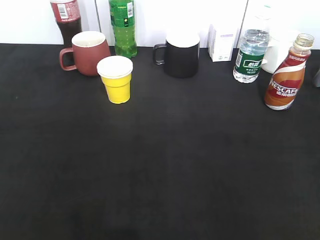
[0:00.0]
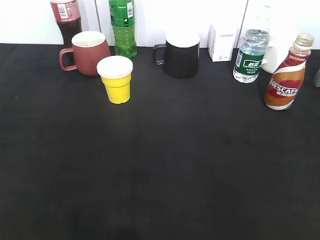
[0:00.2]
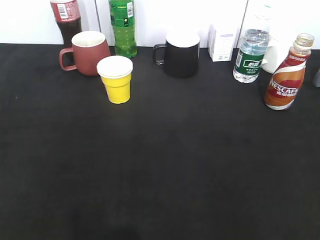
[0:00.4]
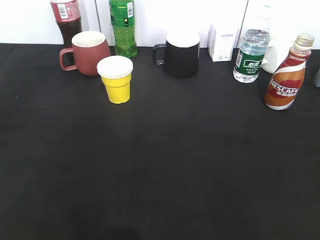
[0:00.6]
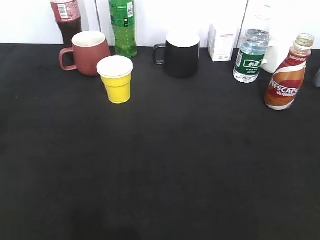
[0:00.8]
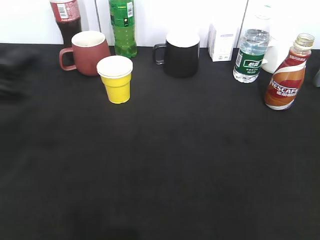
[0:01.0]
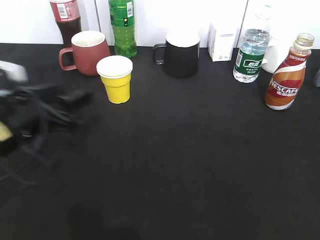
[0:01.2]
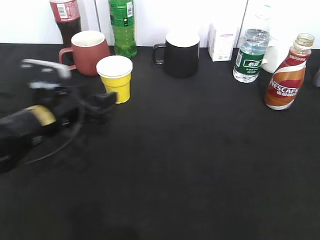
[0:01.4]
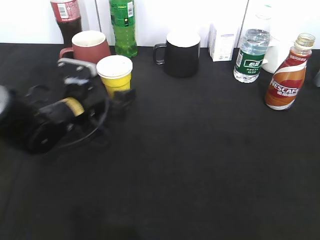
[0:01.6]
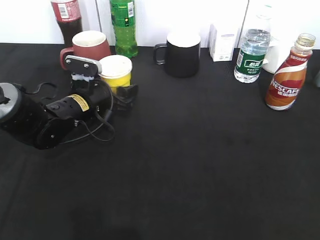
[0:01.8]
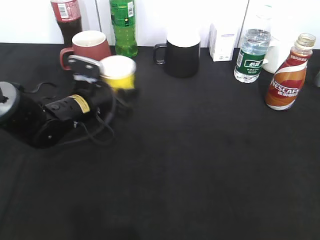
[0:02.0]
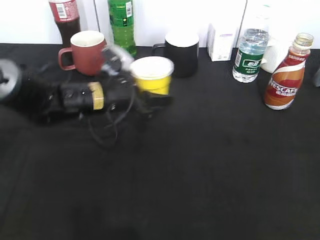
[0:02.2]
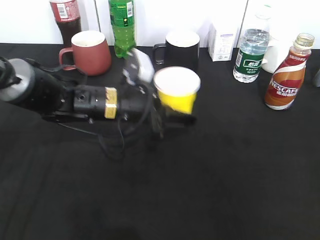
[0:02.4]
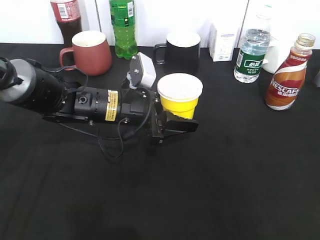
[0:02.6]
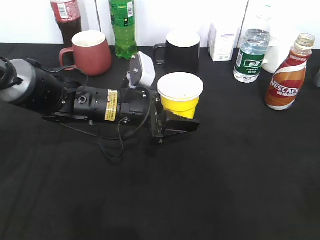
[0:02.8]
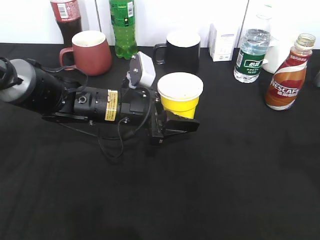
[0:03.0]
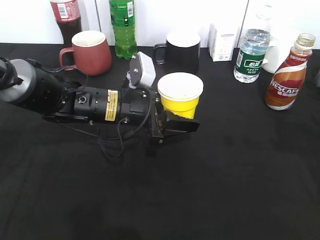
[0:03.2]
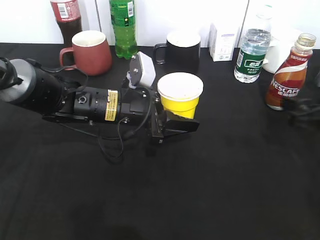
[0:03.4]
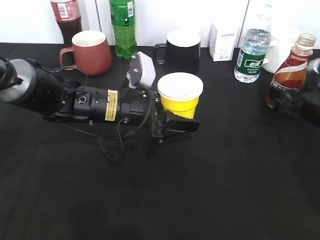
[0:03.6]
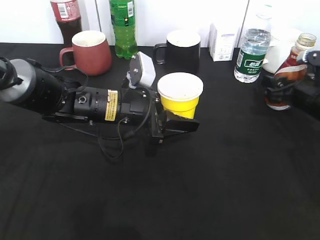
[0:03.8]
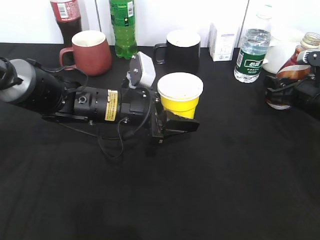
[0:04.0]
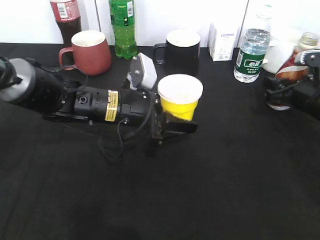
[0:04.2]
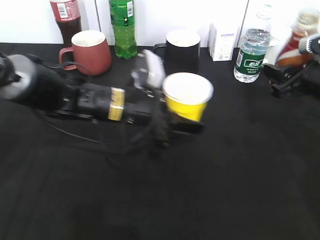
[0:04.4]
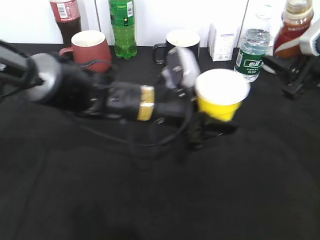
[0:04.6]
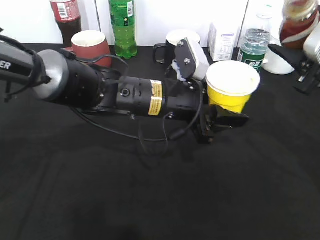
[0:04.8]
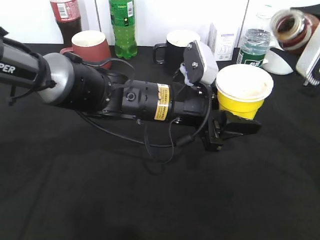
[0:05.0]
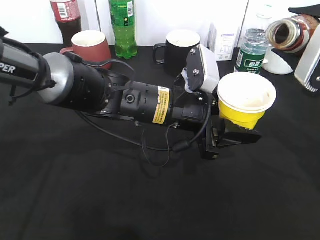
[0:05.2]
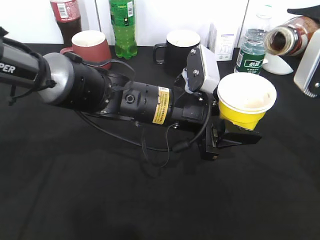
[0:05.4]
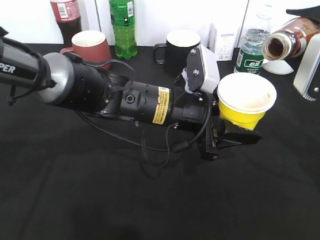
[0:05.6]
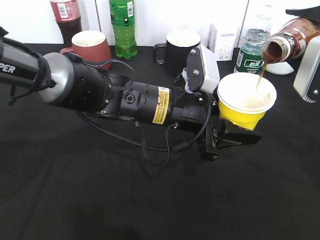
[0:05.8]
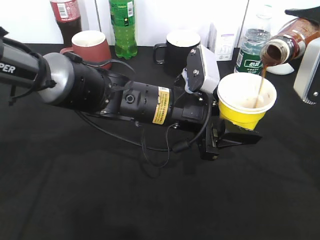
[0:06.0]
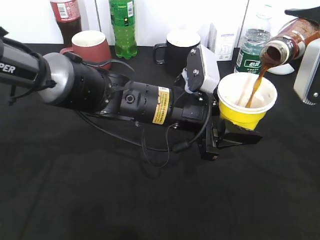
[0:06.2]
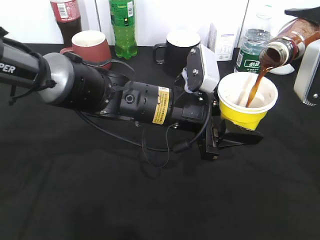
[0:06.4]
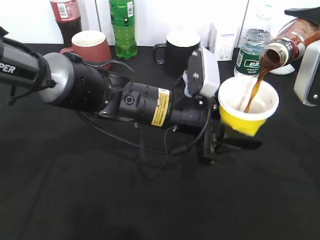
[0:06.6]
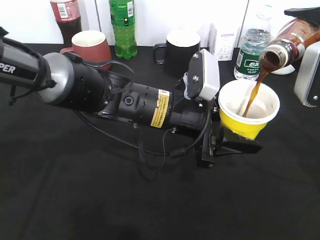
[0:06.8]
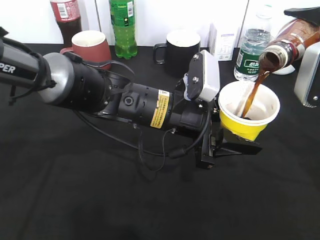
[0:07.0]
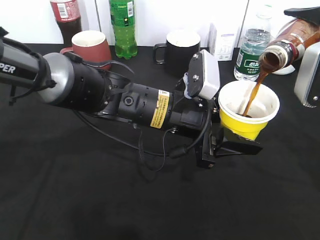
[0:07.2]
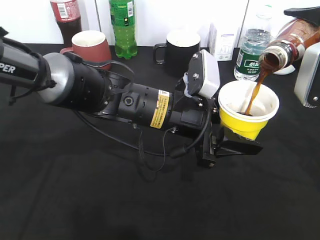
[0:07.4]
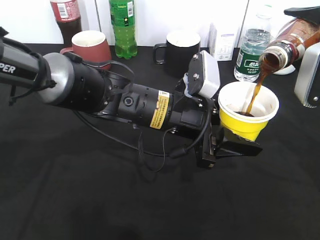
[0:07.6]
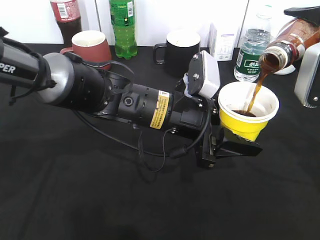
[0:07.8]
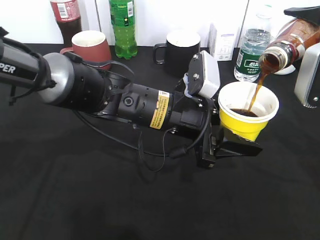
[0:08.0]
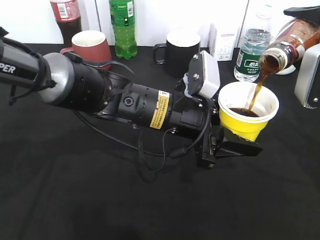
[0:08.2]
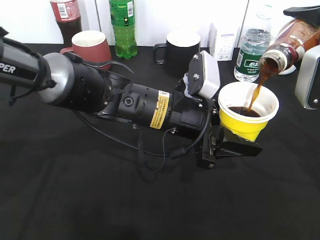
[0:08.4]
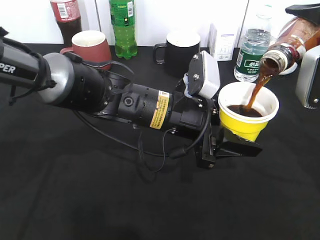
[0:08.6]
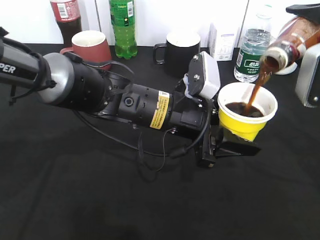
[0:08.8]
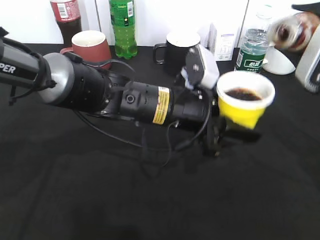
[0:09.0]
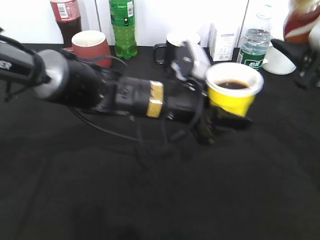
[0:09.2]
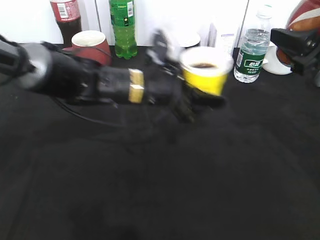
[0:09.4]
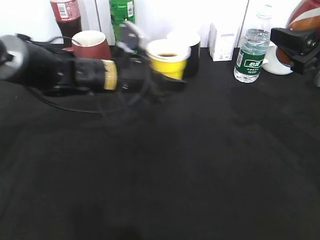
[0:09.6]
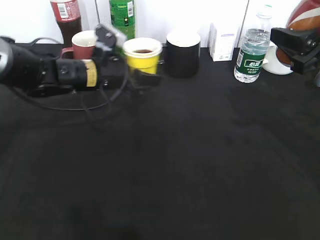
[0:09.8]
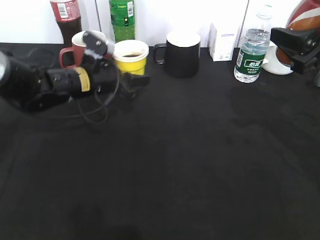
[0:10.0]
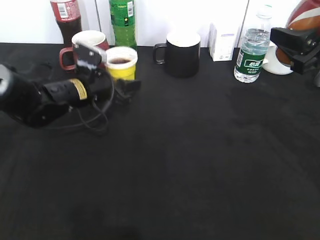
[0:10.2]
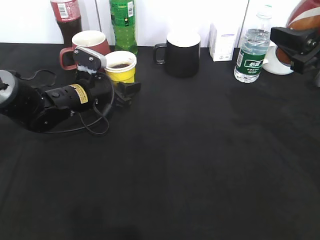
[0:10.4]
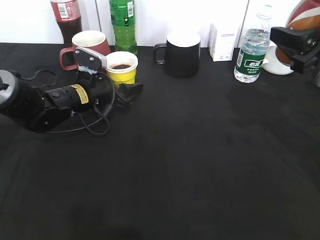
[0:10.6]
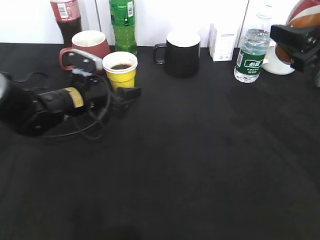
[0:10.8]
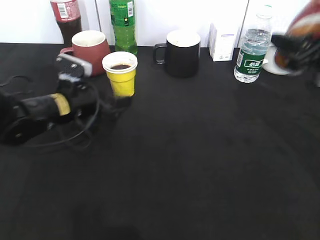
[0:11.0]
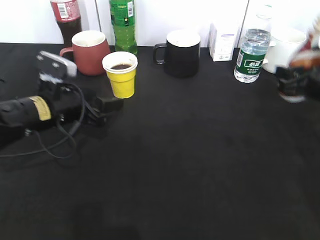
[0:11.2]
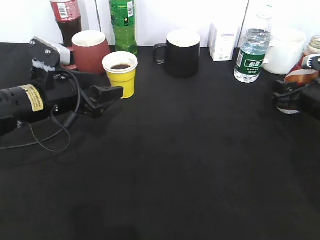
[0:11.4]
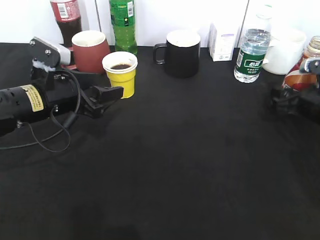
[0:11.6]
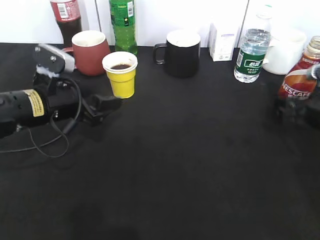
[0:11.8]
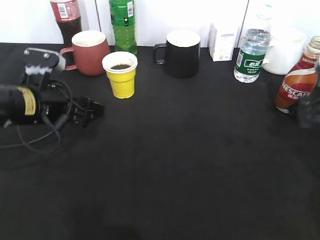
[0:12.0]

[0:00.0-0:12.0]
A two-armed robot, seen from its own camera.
Step, 0:01.0 to 0:01.8: Grasp the yellow paper cup with left gripper.
Step, 0:02.0 to 0:03.0: Lift the yellow paper cup with left gripper.
Step, 0:03.2 to 0:03.8: Grasp the bottle with coffee with right gripper.
Step, 0:04.0 to 0:09.0: Pour the coffee from bottle to cup with right gripper.
Step, 0:09.2 to 0:10.6: Place the yellow paper cup on the table with left gripper.
Step, 0:10.8 to 0:11.6: Place the coffee bottle on the table with right gripper.
0:00.0 to 0:01.6: The left gripper goes some 40 cm forward, downward and to the right, and opens up.
0:01.6 to 0:03.0: The left gripper travels to the right by about 10 cm, and closes up. The right gripper travels forward by about 15 cm.
0:03.0 to 0:04.4: The right gripper is displaced forward and downward by about 20 cm, and closes up.
0:04.4 to 0:06.0: The right gripper travels upward by roughly 10 cm, while the left gripper travels to the right by about 5 cm.
0:06.0 to 0:07.6: The grippers make only small movements.
0:09.0 to 0:10.4: The left gripper is displaced to the left, forward and downward by approximately 20 cm.
0:10.4 to 0:12.0: The left gripper goes about 10 cm backward and upward, and opens, while the right gripper travels downward by some 10 cm, and opens up.

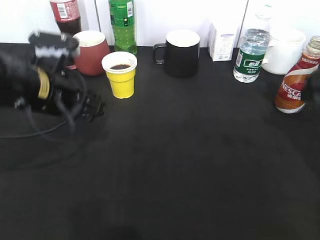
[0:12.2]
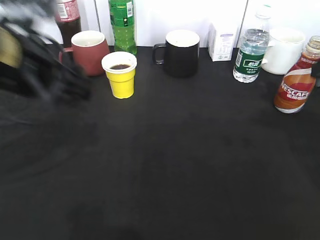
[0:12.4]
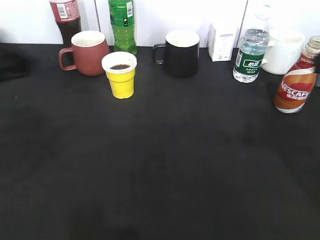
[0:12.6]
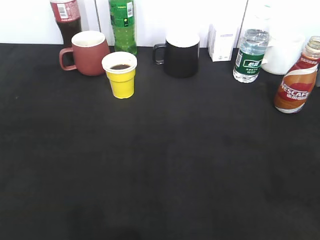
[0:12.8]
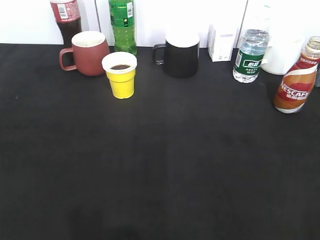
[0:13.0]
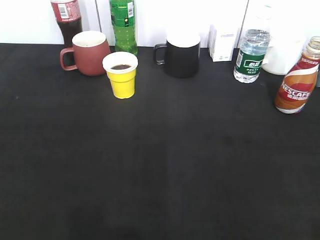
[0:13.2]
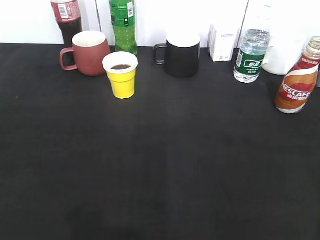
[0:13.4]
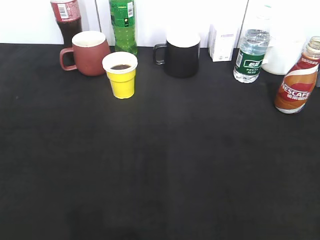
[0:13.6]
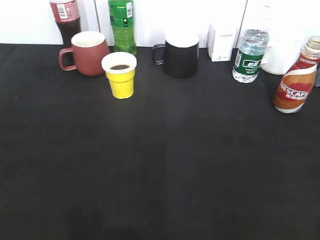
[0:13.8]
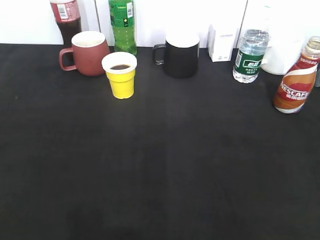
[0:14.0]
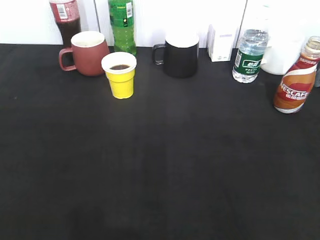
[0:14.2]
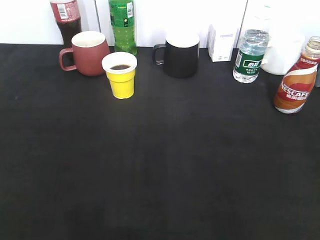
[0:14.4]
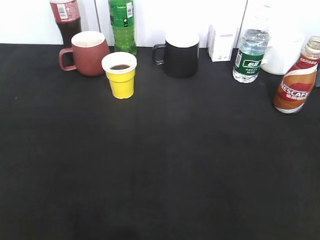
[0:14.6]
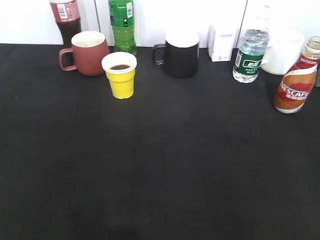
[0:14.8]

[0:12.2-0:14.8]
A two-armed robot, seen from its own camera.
0:12.2 to 0:13.4: The left gripper shifts approximately 30 cm backward and to the left. Meanwhile the right gripper is displaced backward by roughly 30 cm.

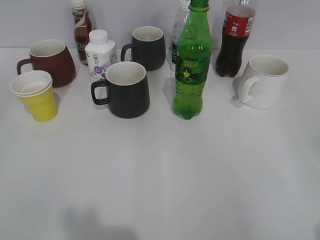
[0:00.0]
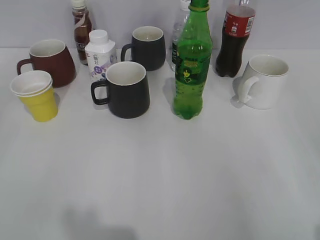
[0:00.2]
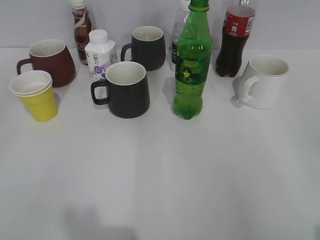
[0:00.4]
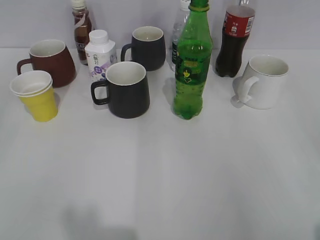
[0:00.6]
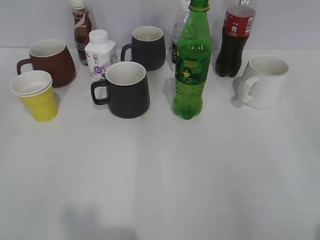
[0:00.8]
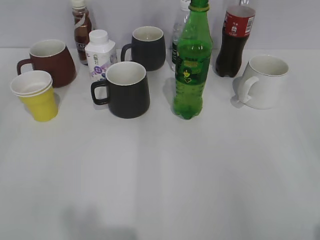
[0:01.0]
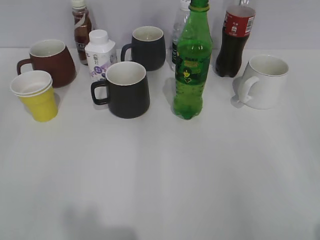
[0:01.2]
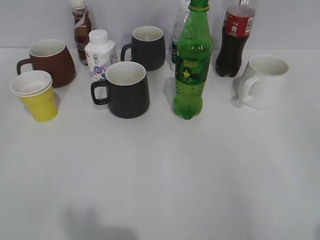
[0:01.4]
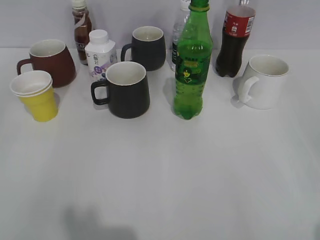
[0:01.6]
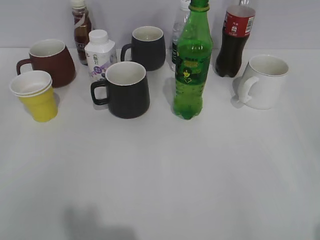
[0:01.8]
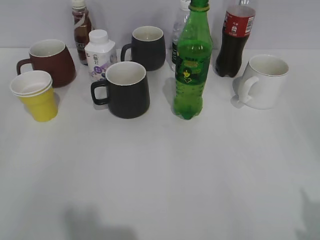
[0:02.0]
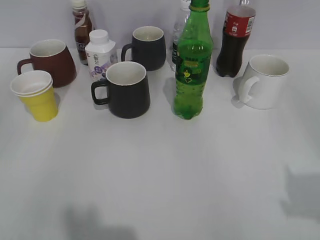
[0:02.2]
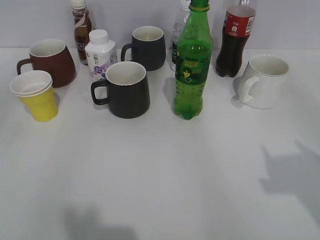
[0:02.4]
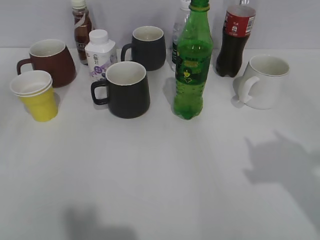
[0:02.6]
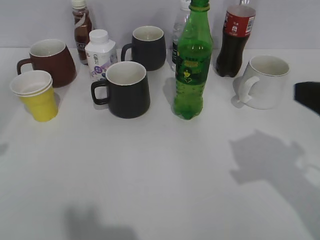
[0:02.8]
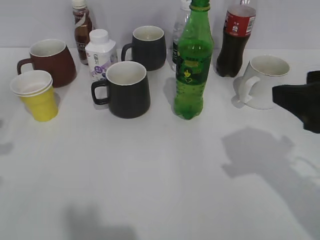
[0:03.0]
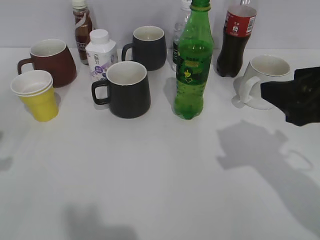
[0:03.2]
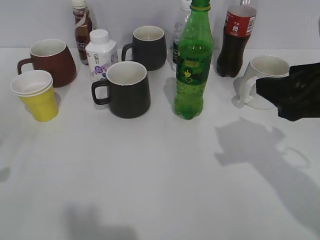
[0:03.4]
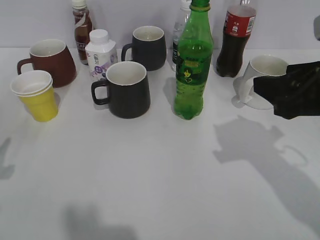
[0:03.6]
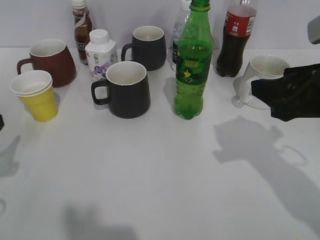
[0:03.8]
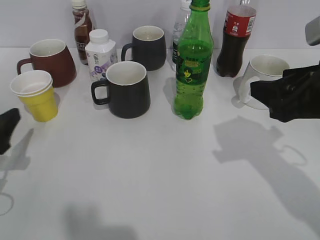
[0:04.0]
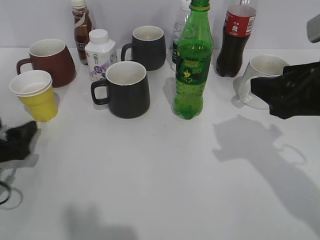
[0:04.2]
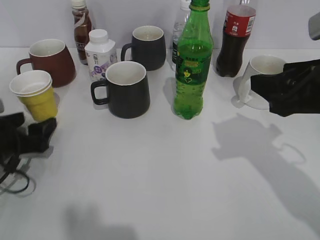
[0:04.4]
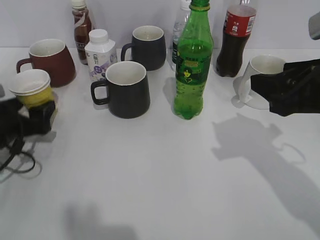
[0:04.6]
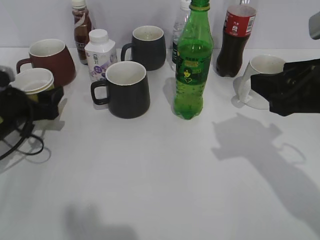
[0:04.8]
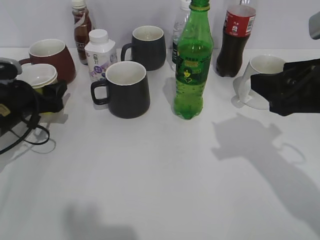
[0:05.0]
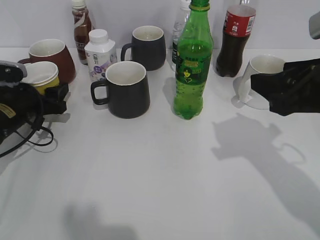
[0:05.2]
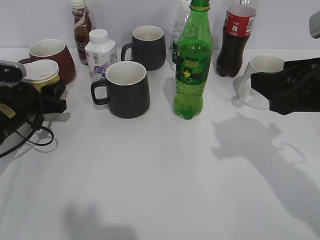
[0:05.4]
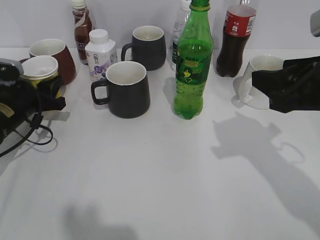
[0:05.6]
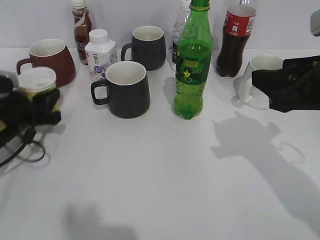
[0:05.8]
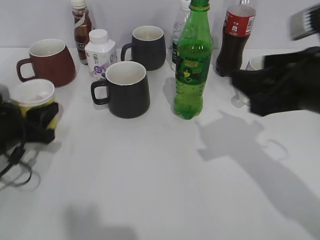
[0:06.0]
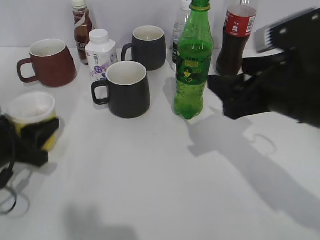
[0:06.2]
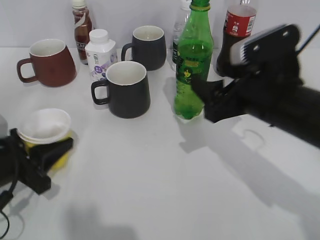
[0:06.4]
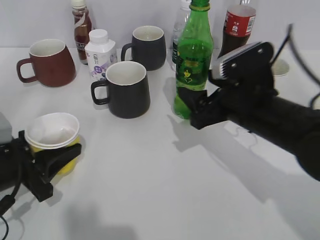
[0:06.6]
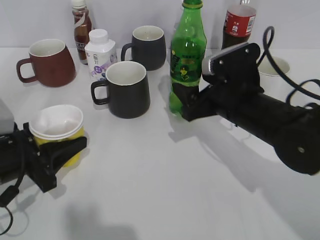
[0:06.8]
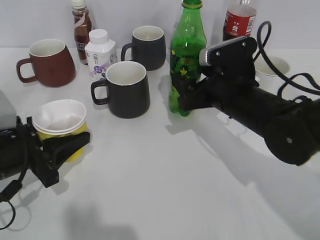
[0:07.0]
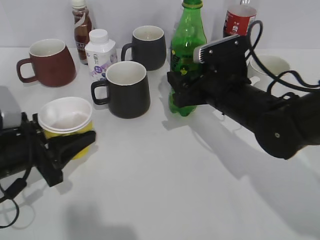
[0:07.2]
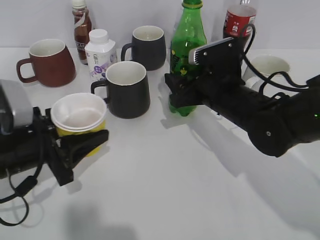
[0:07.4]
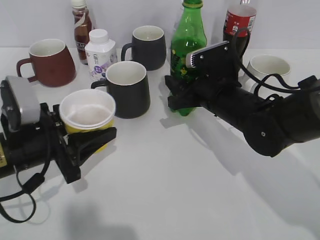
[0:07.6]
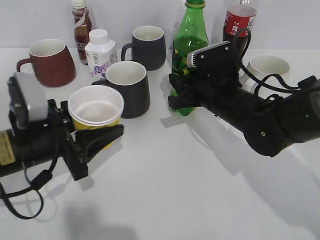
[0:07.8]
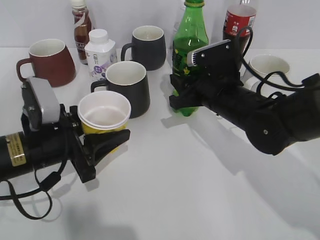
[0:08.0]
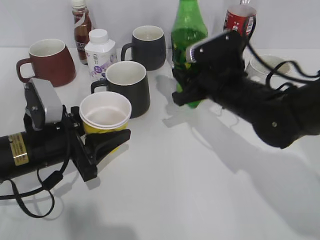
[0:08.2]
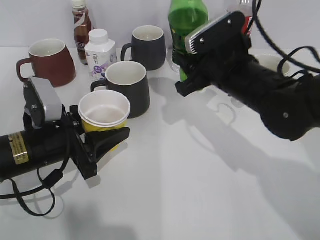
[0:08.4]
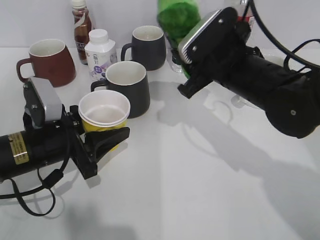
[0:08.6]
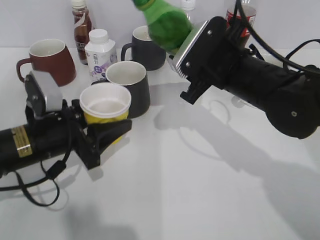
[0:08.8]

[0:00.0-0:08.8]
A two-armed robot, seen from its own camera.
Step, 0:01.8 to 0:04.6: Grasp the yellow paper cup with left gripper.
Step, 0:04.8 to 0:05.6: Lift the yellow paper cup with left gripper.
Step, 0:05.8 to 0:07.8: Grasp the bottle with sprite with right gripper.
0:01.4 to 0:03.0: The right gripper heads forward and to the left, covering some 20 cm.
0:03.0 to 0:04.4: The left gripper is displaced downward and forward by some 15 cm, and opens its fingers.
0:04.4 to 0:05.8: The left gripper moves forward, some 5 cm, and closes its fingers.
0:05.8 to 0:07.4: The left gripper shifts approximately 10 cm backward and to the right; the right gripper shifts roughly 20 cm downward, forward and to the left, and opens up.
0:07.4 to 0:08.8: The right gripper moves upward, about 5 cm, and closes.
